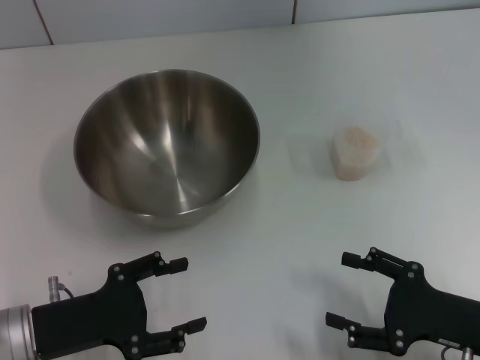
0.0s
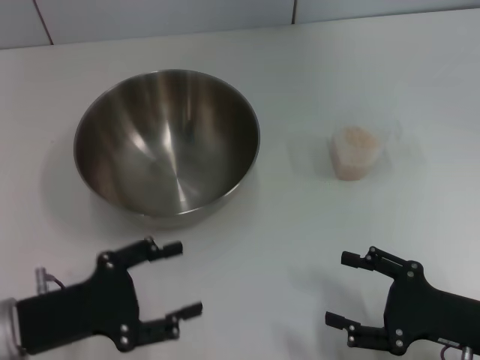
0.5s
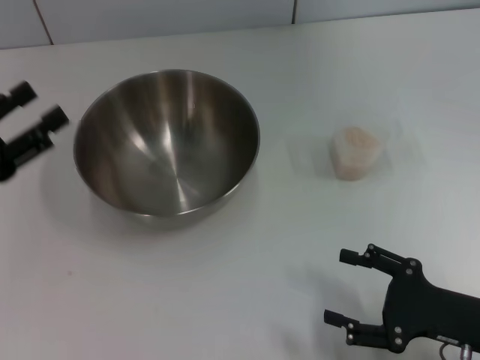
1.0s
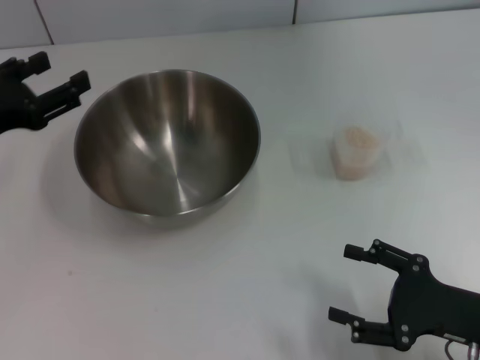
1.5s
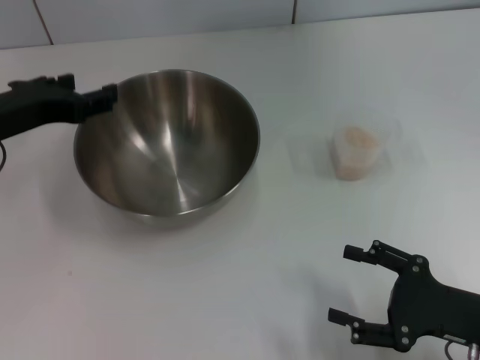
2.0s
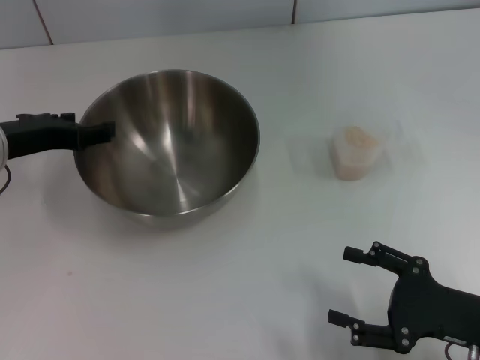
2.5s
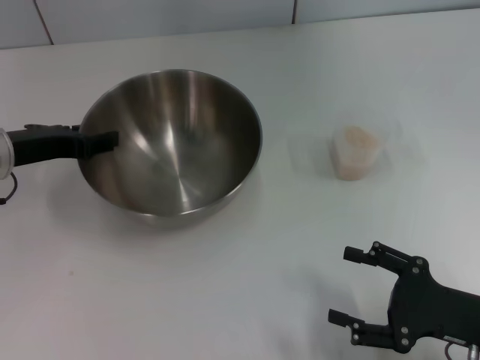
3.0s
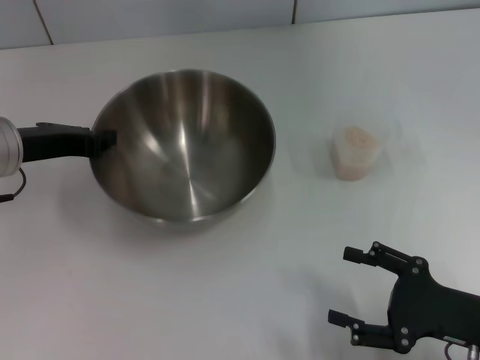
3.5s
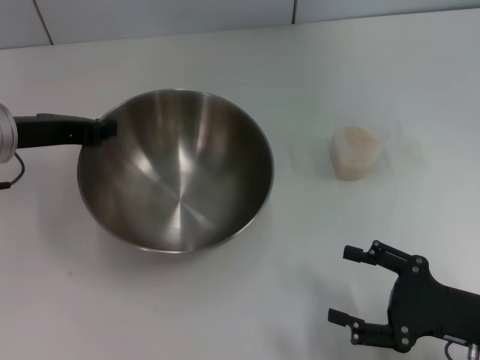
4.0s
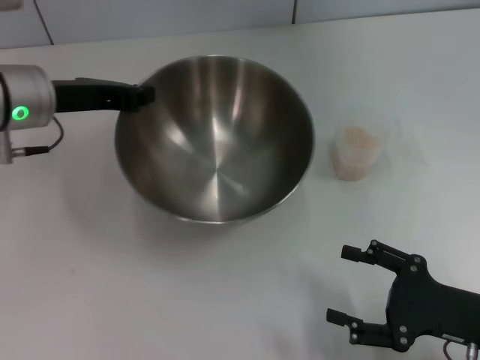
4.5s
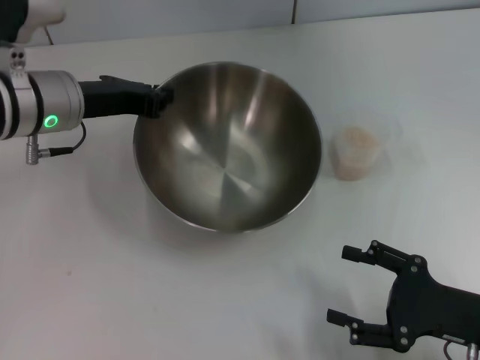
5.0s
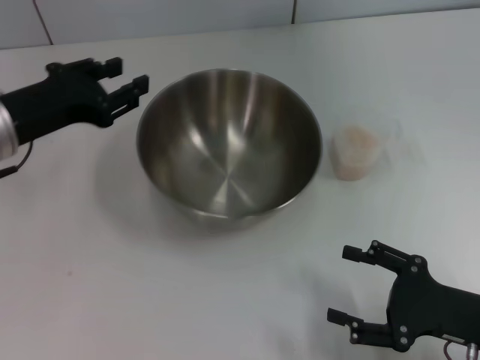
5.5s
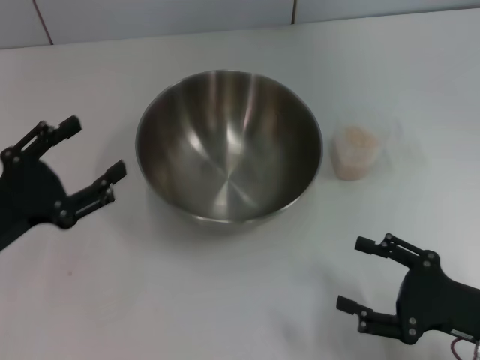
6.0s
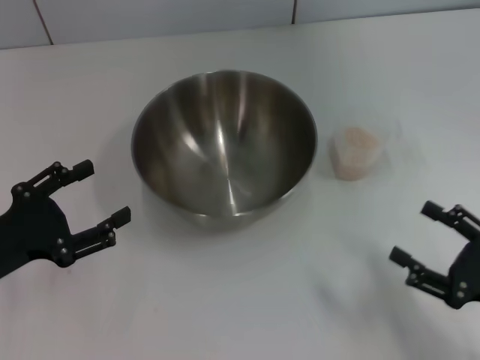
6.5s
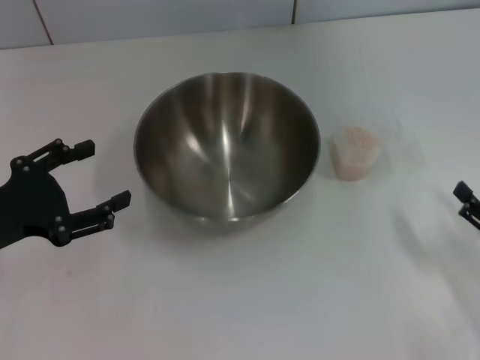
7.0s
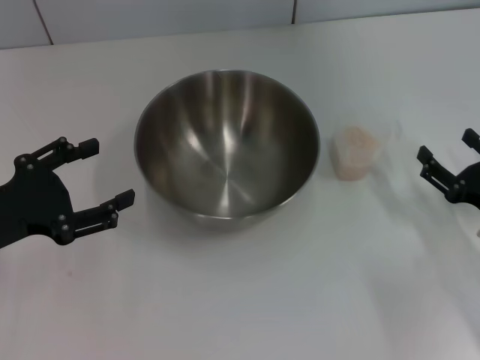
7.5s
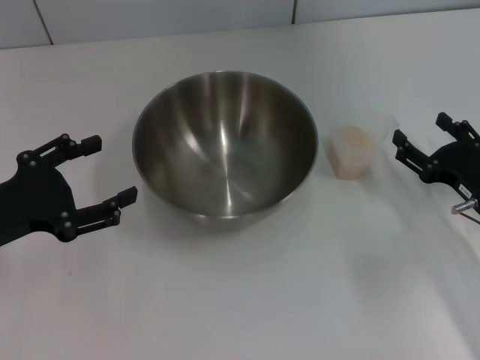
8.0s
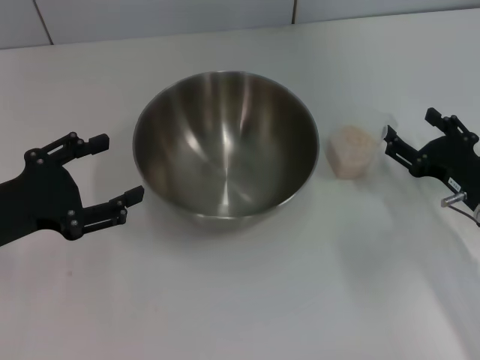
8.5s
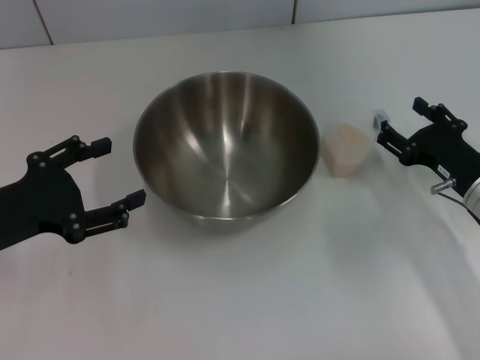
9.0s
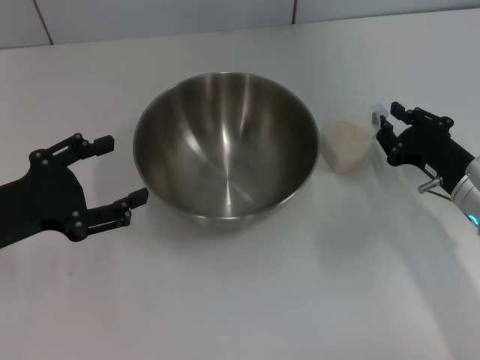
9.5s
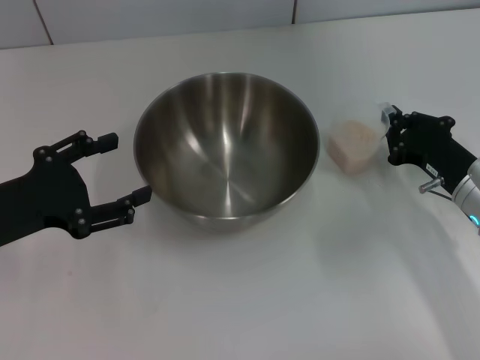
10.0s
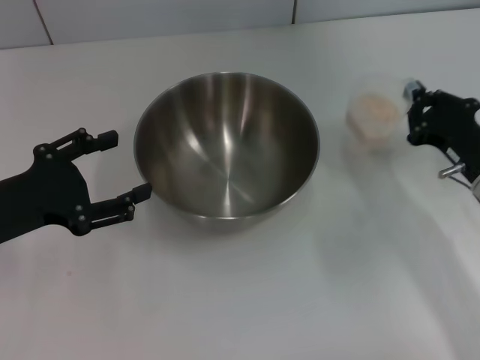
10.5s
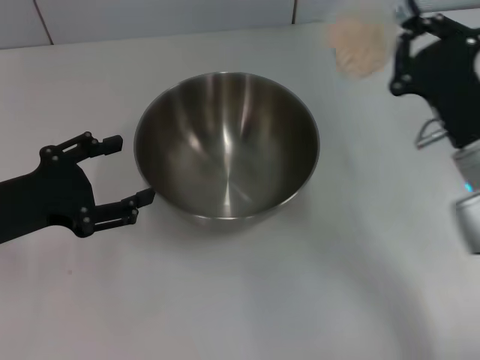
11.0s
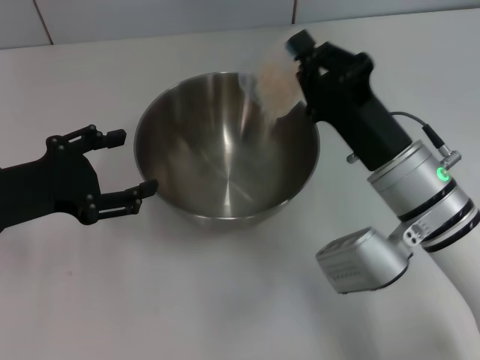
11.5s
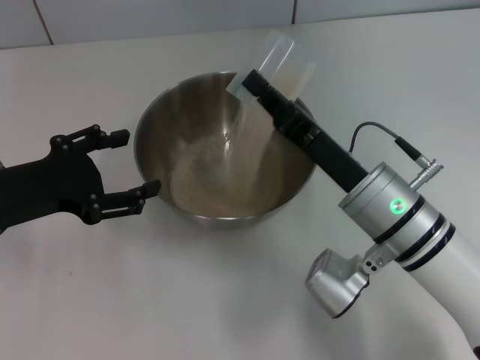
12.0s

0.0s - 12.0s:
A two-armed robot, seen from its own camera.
Task of the whole recording: Place the bowl in the middle of the table with one hand and pour the rice from the grain cup into it with the other hand.
Step, 0.0s - 4.0s: Pick up the bowl with the left gripper.
Step, 4.5s - 6.0s: Place the bowl in the center of view with the left gripper.
Step, 6.5s - 10.5s: Pick up the cup with rice in it with the right gripper.
0.0s - 2.0s: The left gripper moves upward and forward, approximately 15 cm.
2.0s - 4.0s: The left gripper closes its fingers.
4.0s - 6.0s: The left gripper heads backward and downward, covering approximately 15 cm, and opens up.
6.0s - 8.0s: The right gripper heads forward, covering roughly 10 cm.
8.0s - 10.0s: The right gripper closes up.
10.0s - 12.0s: The right gripper travels to the left by some 15 cm.

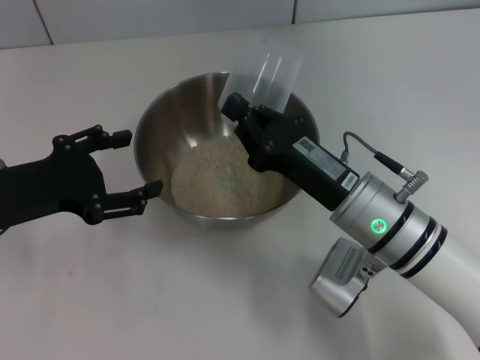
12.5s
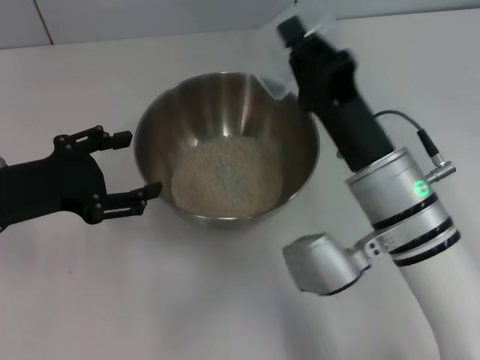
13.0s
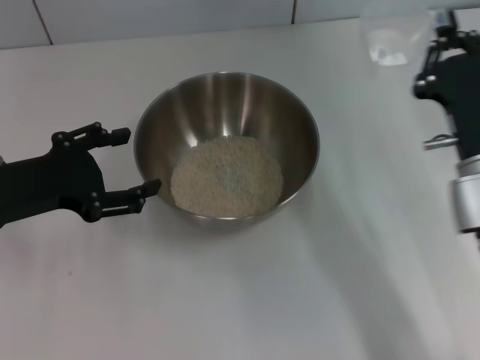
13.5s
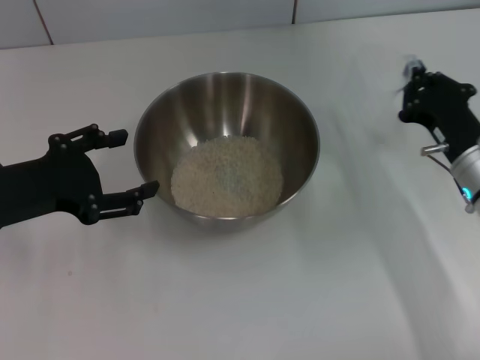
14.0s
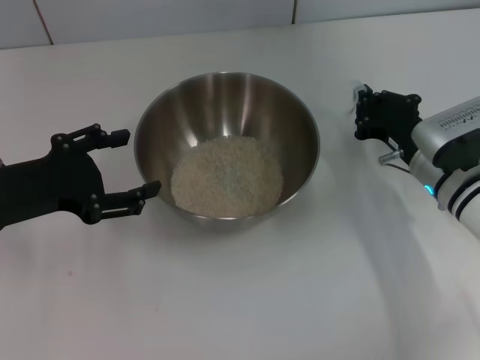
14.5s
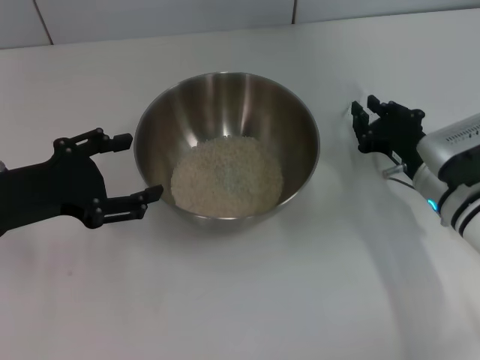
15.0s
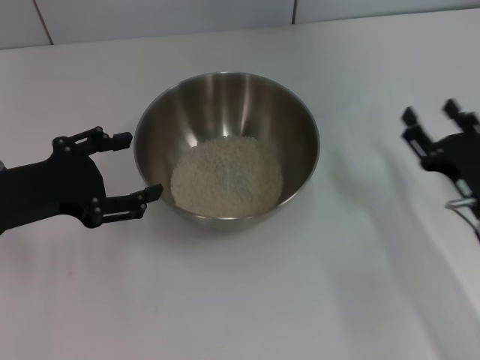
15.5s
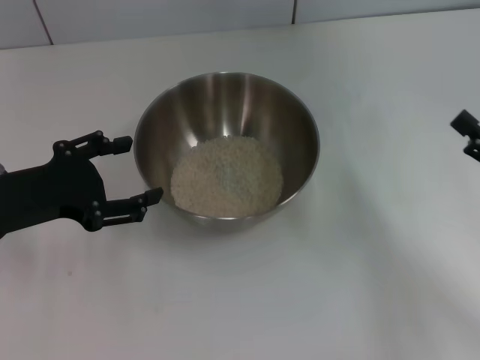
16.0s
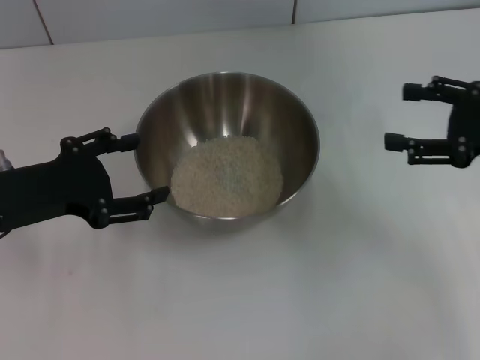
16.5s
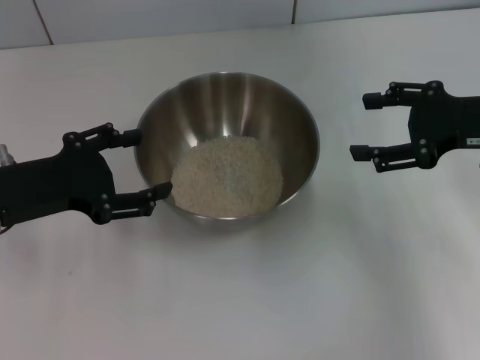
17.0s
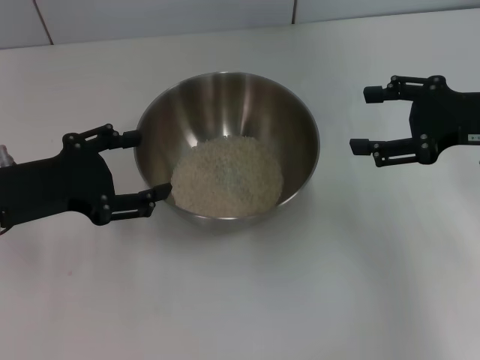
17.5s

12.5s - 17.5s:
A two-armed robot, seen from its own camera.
Task of the whole recording: Place the bowl in the middle of the table with one hand and pour the rice from the grain cup into it with the other hand.
Step, 13.5s - 15.5s: Place the cup on the table with the right gripper.
12.5s - 15.0s: The right gripper shifts approximately 10 cm to the right.
15.0s - 17.5s: The right gripper shifts approximately 15 cm upward and to the right, and opens its fingers.
